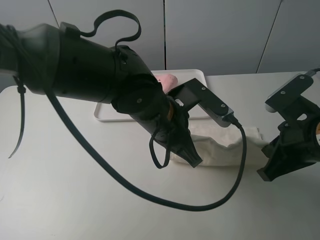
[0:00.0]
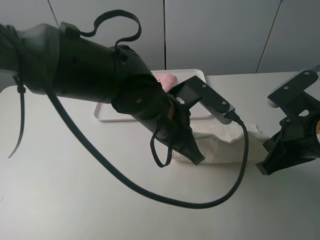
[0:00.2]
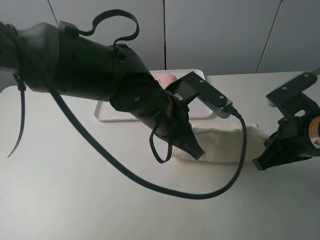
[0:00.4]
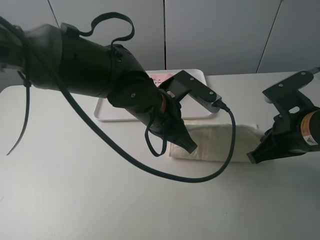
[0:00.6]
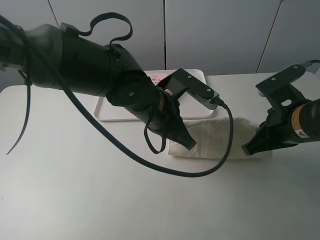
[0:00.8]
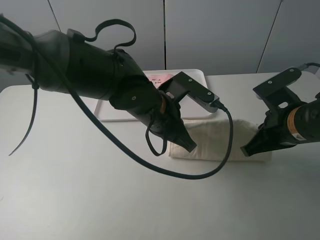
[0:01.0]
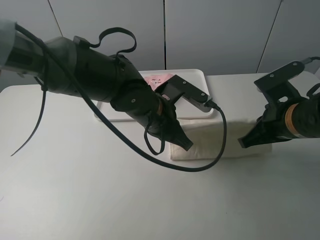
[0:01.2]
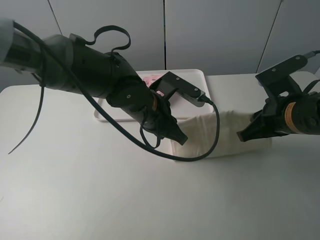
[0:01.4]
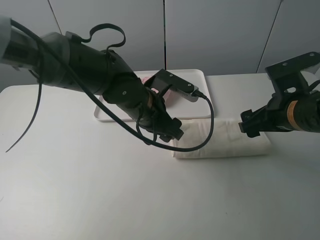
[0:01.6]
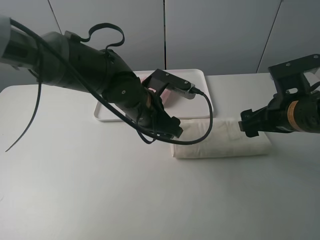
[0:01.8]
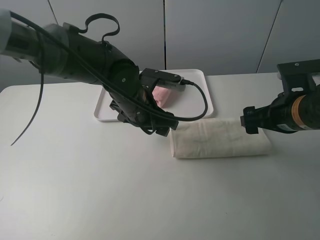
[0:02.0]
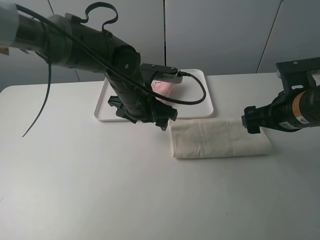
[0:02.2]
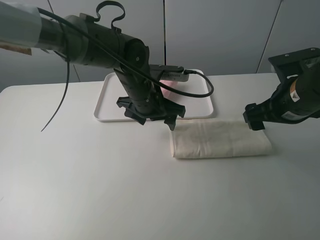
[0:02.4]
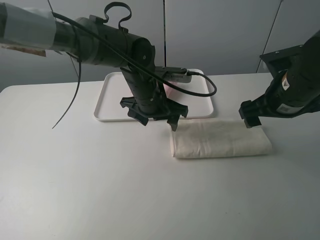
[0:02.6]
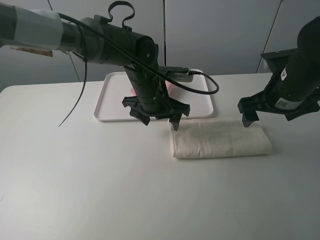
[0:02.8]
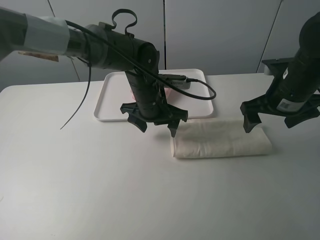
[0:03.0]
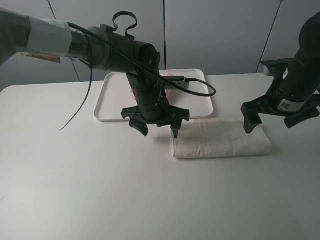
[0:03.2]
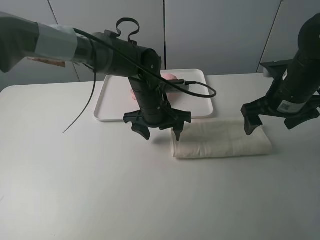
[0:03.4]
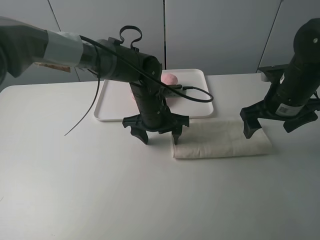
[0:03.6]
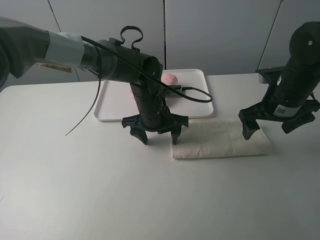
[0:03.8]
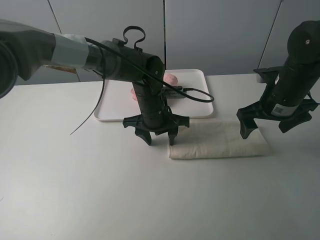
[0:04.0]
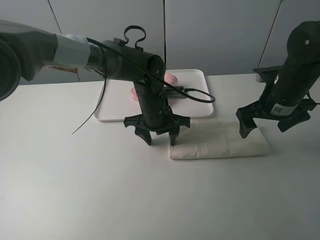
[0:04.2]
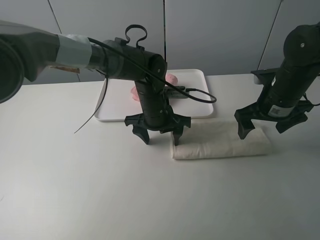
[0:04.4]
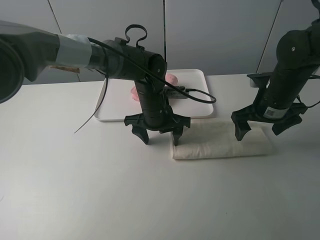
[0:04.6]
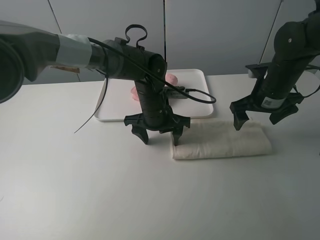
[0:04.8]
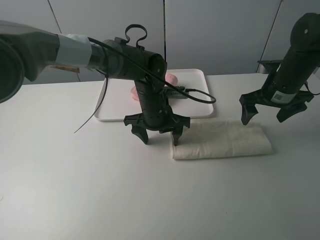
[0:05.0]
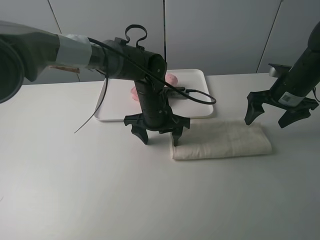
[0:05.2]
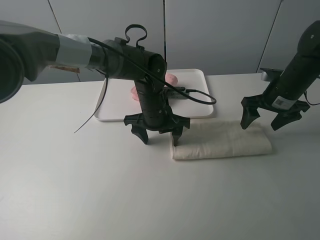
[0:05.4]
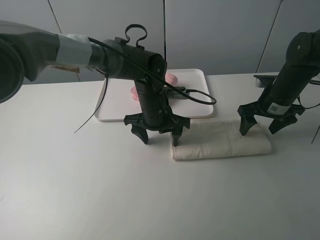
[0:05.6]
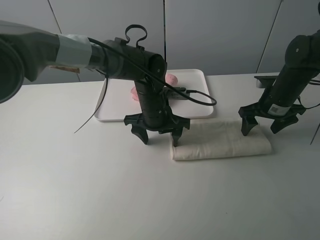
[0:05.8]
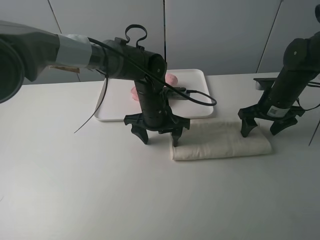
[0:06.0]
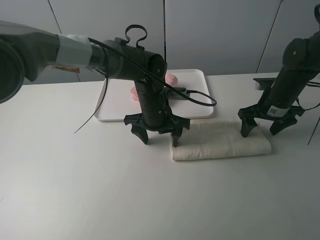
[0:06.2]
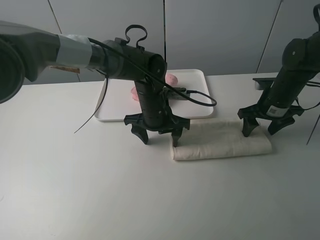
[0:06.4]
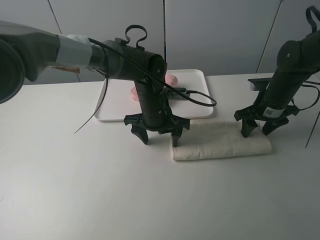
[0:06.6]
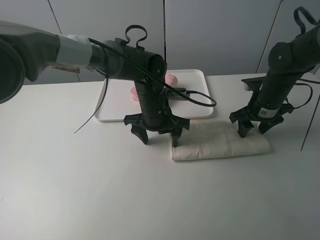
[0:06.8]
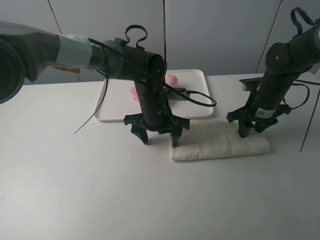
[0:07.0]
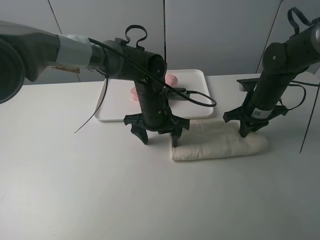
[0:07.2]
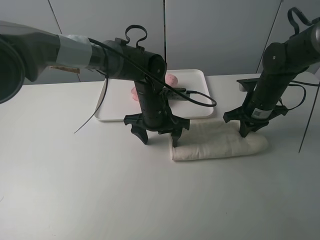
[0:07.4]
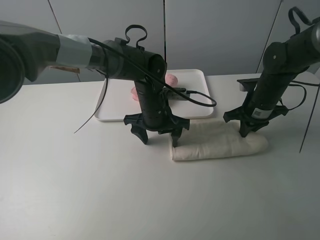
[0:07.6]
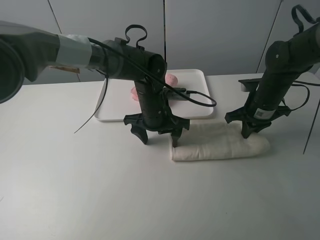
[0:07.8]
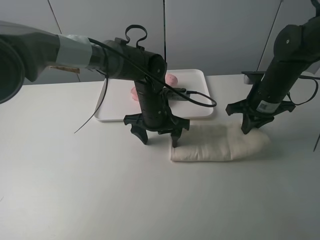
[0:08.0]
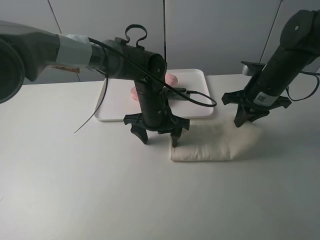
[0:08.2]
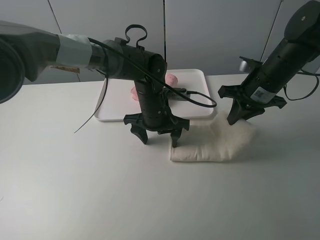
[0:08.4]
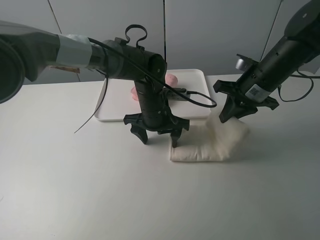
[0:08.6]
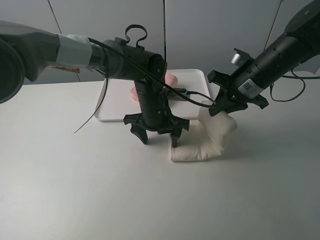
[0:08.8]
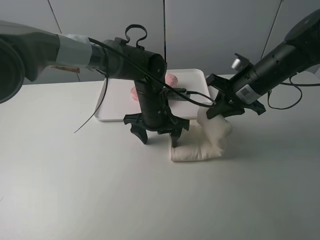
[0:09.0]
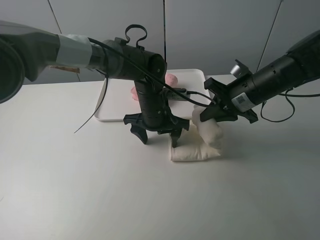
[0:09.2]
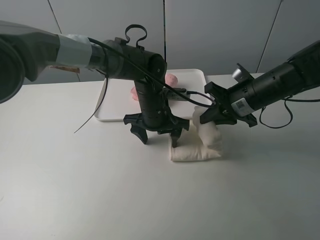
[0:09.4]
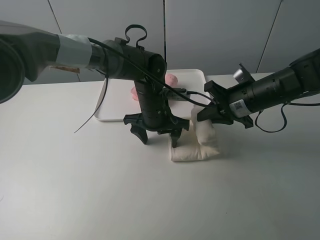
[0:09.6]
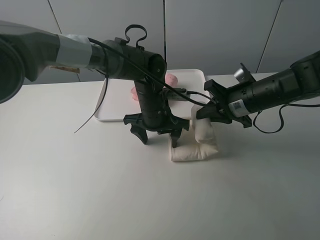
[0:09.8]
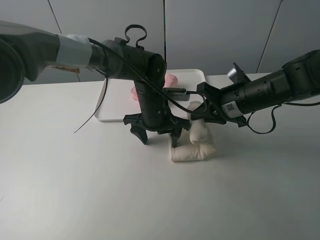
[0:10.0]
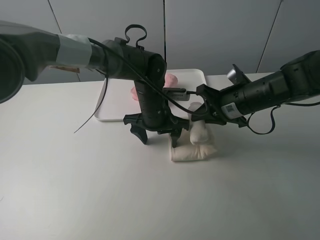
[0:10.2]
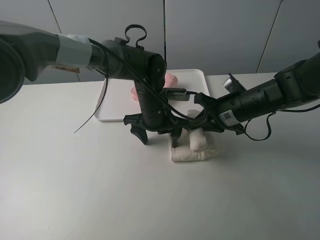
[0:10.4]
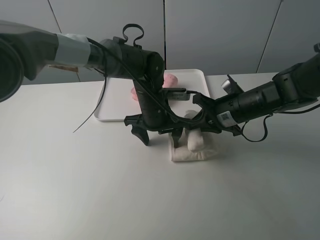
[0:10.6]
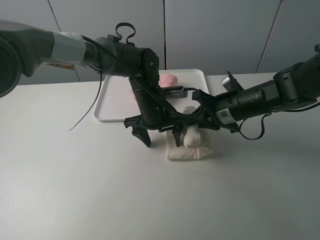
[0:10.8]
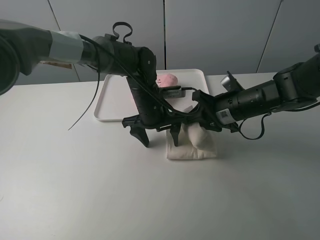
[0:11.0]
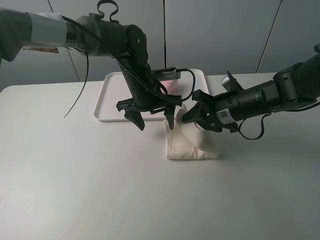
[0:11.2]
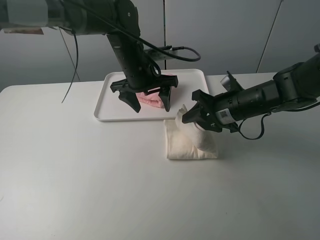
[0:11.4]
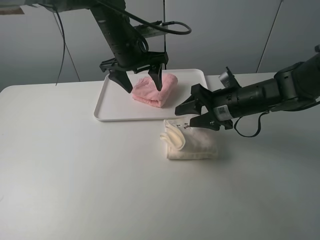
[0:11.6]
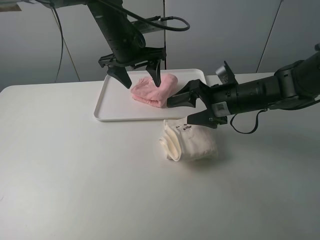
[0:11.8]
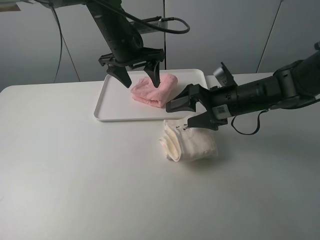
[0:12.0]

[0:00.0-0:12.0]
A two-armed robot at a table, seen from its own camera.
Task of the whole recording: fold one of the towels by two grippers and place it on the tray,then fold another towel by two grippers and place it on the folded towel.
Step, 0:00.0 to 0:01.6: Fold the white towel upwards with the left gripper.
Step, 0:01.8 to 0:03.8: Press the white towel with the left gripper.
Step, 0:04.0 to 0:07.2: Grasp the white towel with the right gripper.
Step, 0:07.4 to 0:11.8: Fold the white towel from right to left with right gripper.
0:00.0 to 0:01.6: The grippers both shift forward by roughly 5 cm. The right gripper opens its fingers, while the left gripper opens its fingers.
0:01.6 to 0:03.0: The right gripper travels forward by roughly 5 cm; the left gripper moves about 5 cm.
0:03.0 to 0:04.4: The grippers move only a little.
0:04.4 to 0:06.0: The right gripper ends up about 10 cm from where it was.
0:06.0 to 0:07.6: The right gripper closes up.
0:07.6 to 0:09.0: The right gripper heads upward, covering approximately 5 cm.
0:09.0 to 0:10.4: The right gripper is displaced downward by roughly 5 cm.
0:10.4 to 0:12.0: The left gripper moves upward, forward and to the left, approximately 15 cm, while the right gripper opens up.

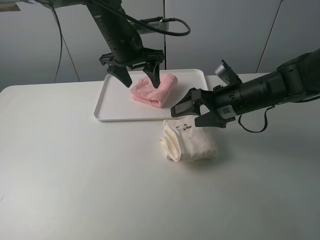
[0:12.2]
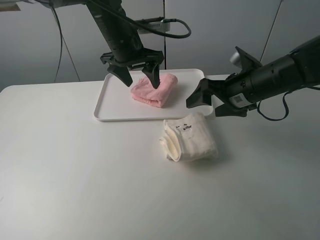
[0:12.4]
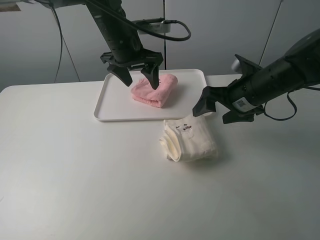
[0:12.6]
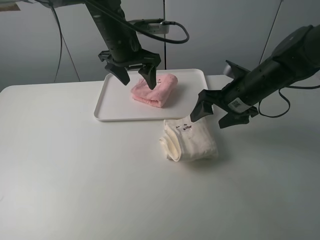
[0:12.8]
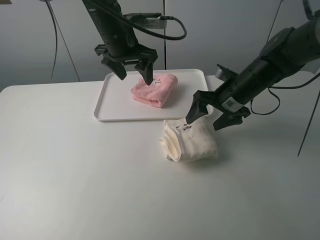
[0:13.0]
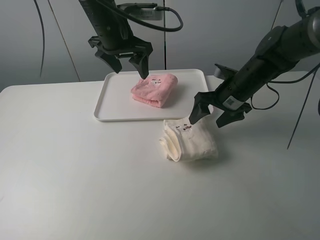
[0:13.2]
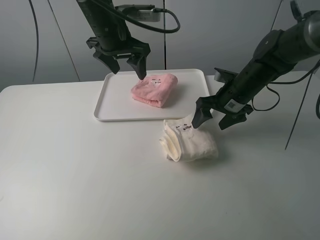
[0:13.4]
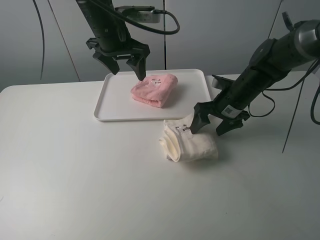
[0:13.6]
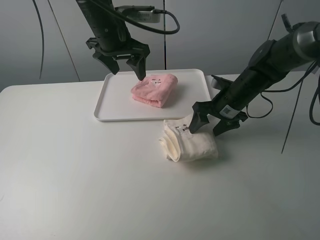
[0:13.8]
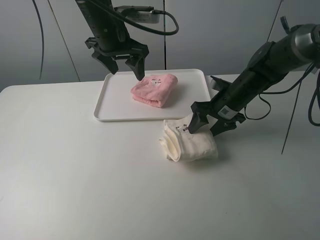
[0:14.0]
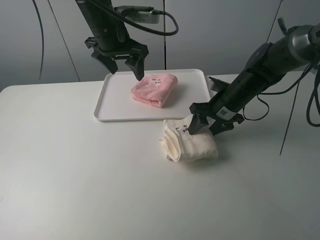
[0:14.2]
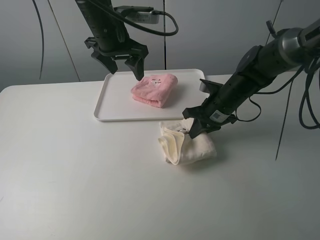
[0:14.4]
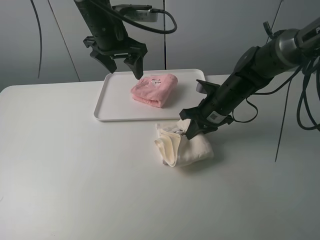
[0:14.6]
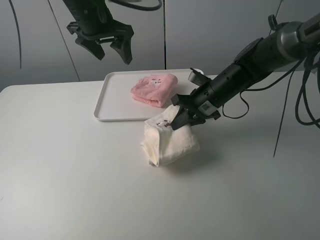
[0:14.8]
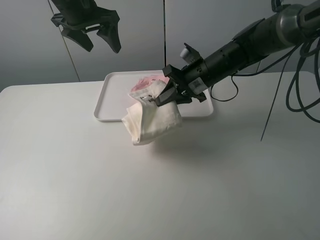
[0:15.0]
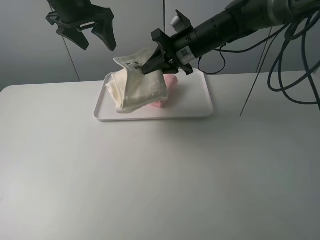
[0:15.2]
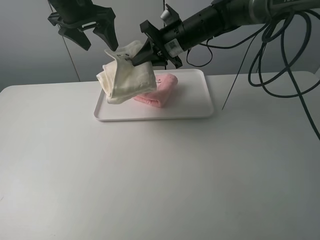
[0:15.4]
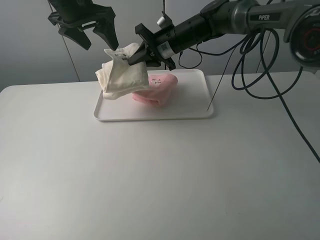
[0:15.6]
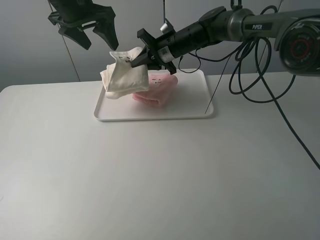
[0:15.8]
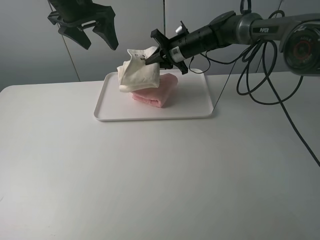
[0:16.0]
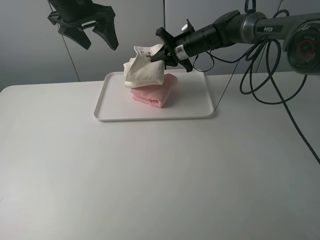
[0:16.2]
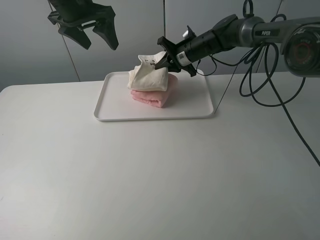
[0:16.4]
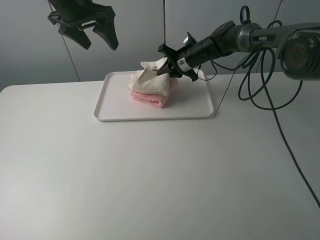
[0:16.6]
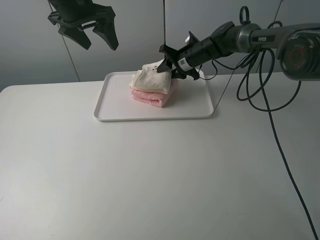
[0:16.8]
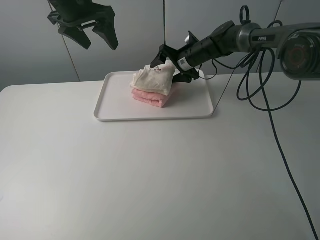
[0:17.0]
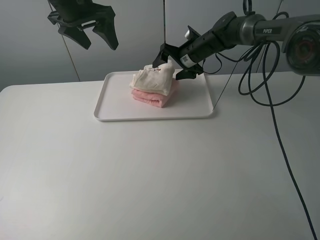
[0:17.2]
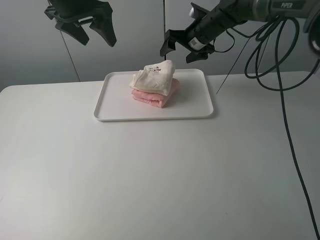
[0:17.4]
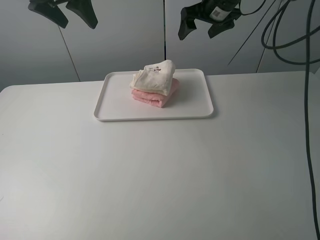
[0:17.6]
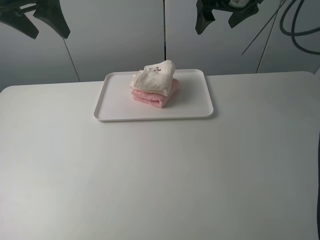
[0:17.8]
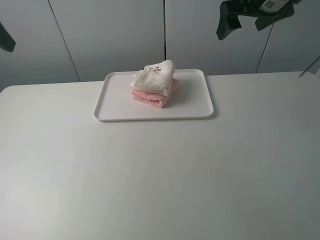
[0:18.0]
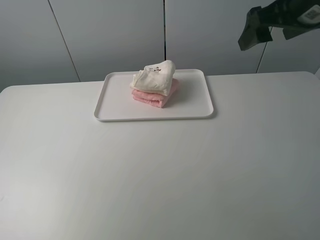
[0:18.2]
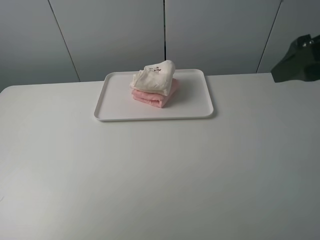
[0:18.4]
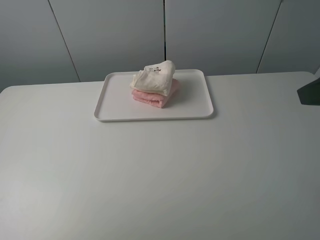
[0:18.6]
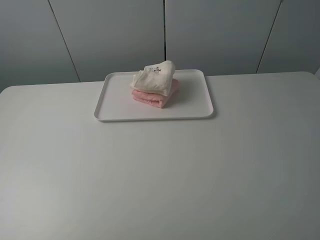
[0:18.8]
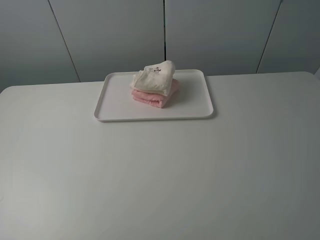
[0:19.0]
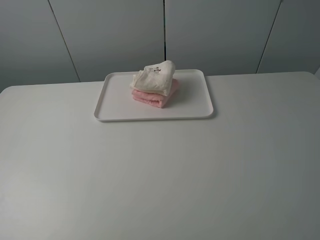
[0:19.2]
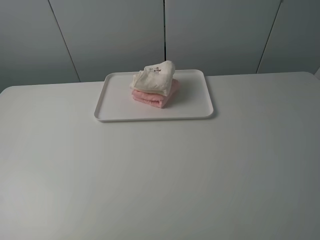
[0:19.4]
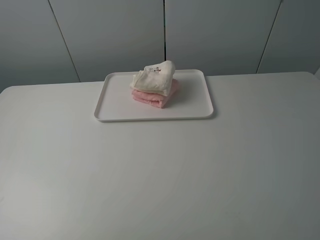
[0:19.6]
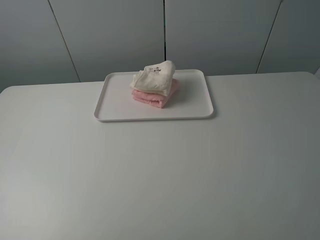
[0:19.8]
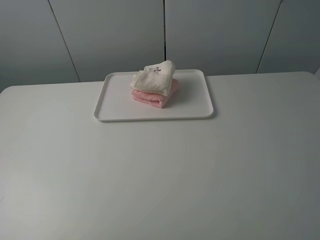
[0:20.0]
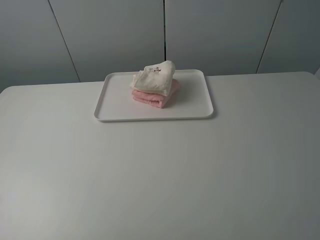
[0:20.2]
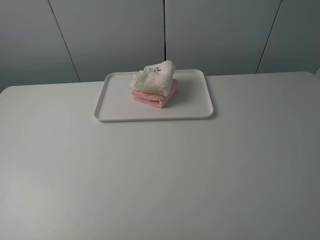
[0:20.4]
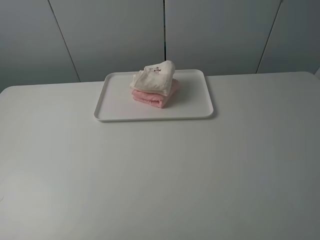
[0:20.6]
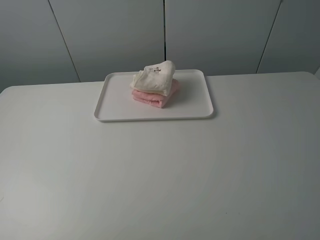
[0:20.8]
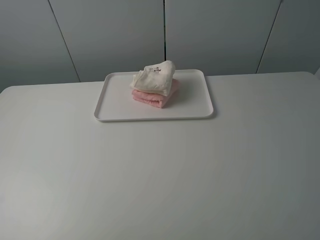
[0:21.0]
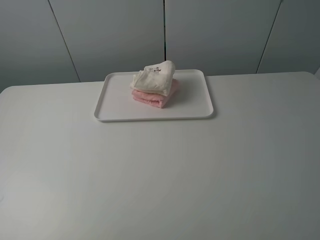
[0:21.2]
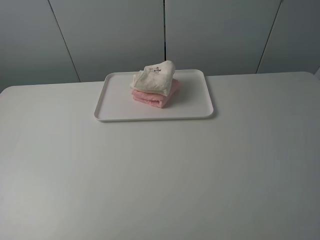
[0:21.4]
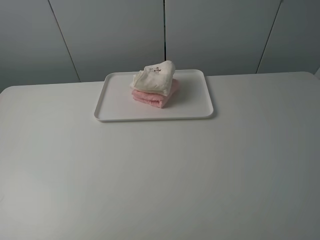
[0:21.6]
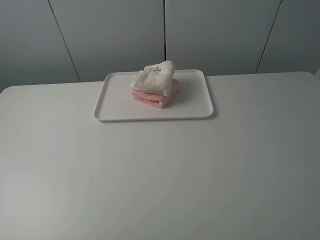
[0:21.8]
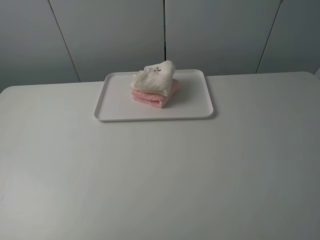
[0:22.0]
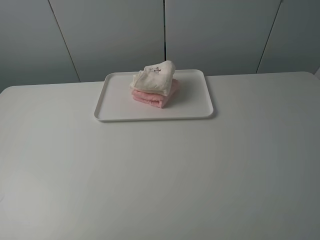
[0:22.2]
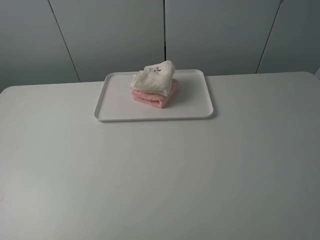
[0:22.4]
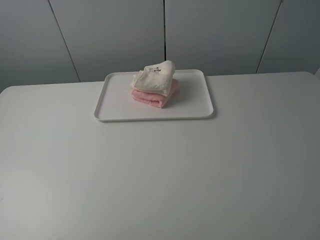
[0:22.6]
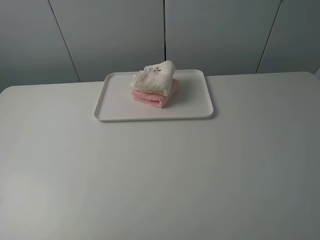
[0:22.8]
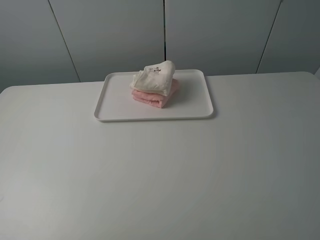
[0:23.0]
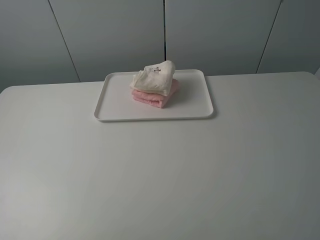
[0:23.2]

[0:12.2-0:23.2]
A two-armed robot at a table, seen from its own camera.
Task of the whole recording: fold one of the towels by two grippers and place it on the tray,then fold another towel by two grippers and place it on the folded towel.
Step, 0:12.2 to 0:14.4: Grasp the white towel with the right gripper.
Step, 0:14.6 to 0:17.2: Place the white towel on the pink towel with the right gripper.
0:12.2 to 0:13.8: The right gripper shifts some 5 cm forward.
0:13.8 to 0:15.4: The left gripper goes approximately 10 cm to the left and upward; the right gripper moves to the left, upward and forward, approximately 20 cm, and closes.
0:15.4 to 0:17.0: The right gripper shifts about 10 cm downward and forward, and opens its fingers.
0:17.0 to 0:18.4: The left gripper moves backward and to the left, roughly 35 cm. Meanwhile the right gripper travels backward, upward and to the right by about 40 cm.
0:18.4 to 0:20.0: The right gripper shifts approximately 20 cm backward.
0:21.6 to 0:23.2: Both grippers stay about where they are.
